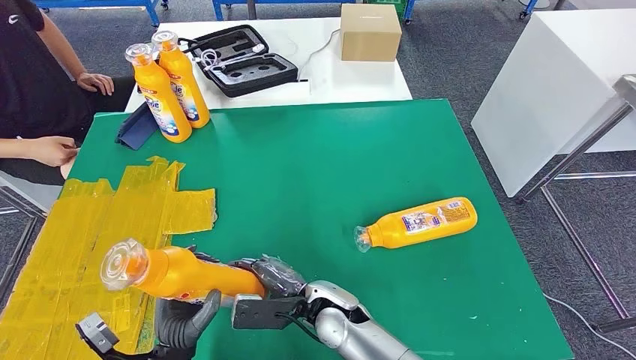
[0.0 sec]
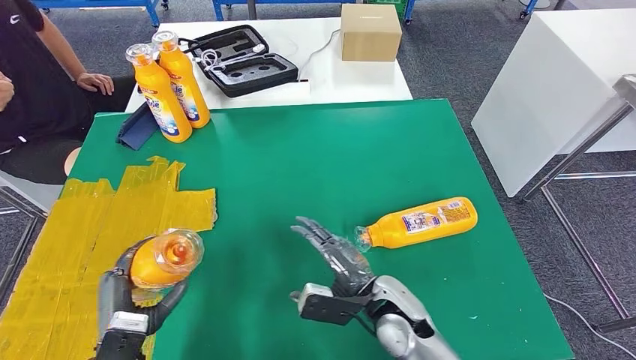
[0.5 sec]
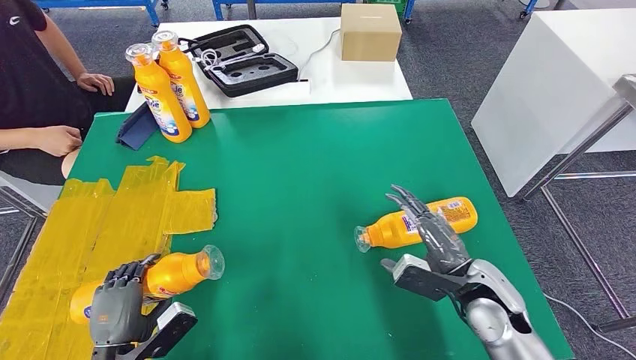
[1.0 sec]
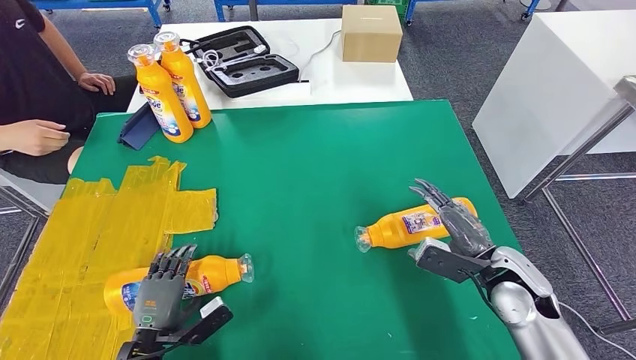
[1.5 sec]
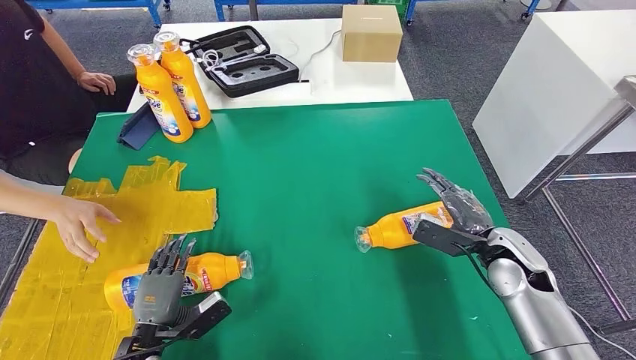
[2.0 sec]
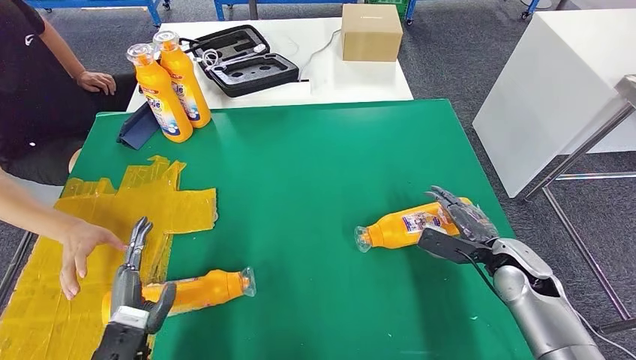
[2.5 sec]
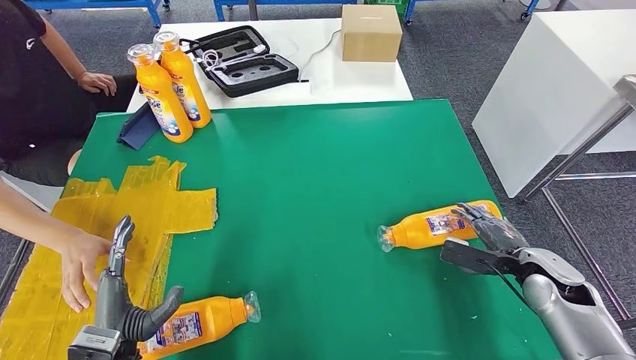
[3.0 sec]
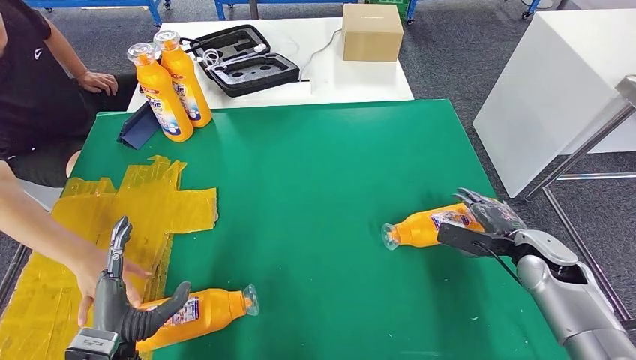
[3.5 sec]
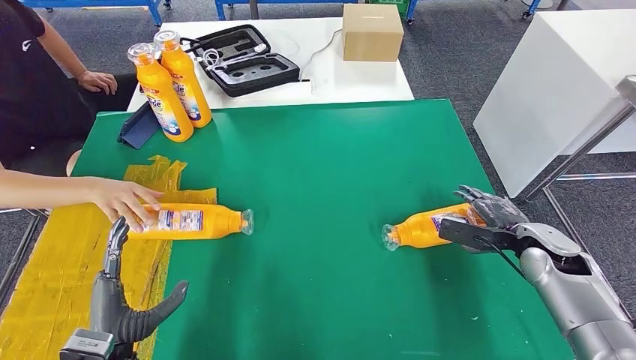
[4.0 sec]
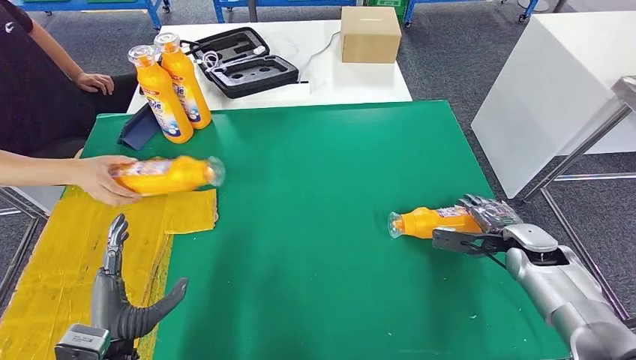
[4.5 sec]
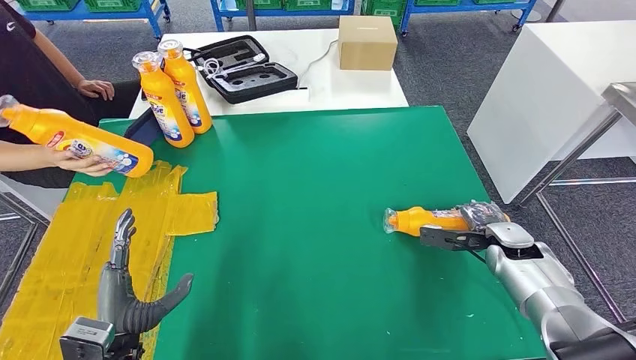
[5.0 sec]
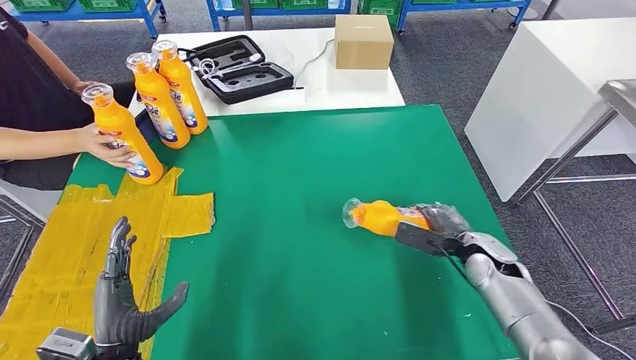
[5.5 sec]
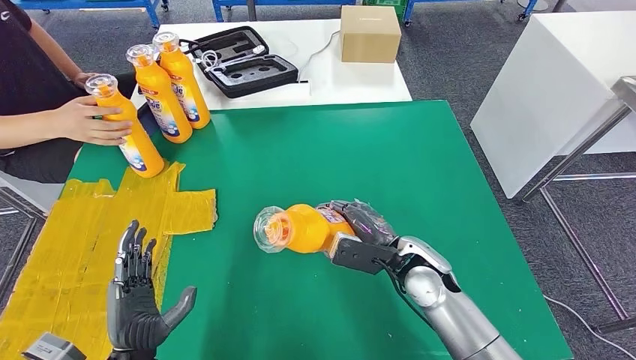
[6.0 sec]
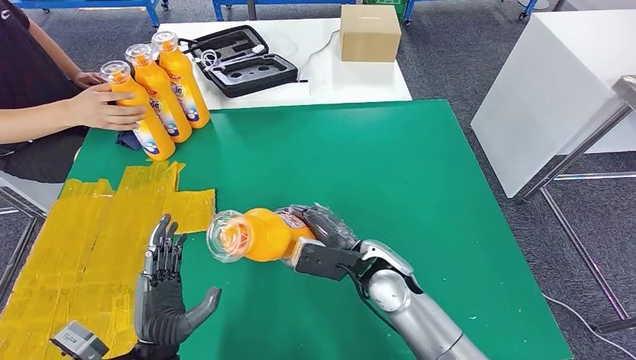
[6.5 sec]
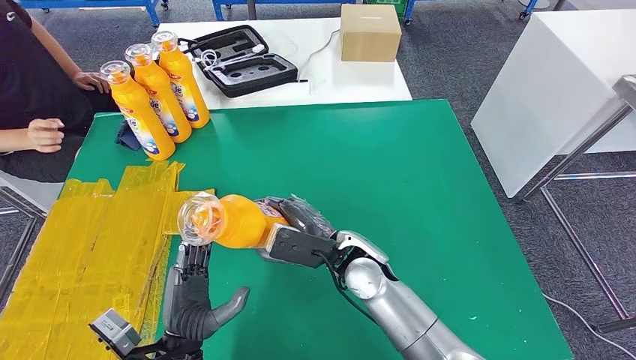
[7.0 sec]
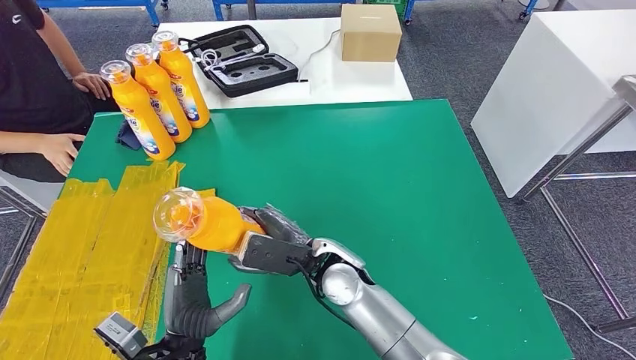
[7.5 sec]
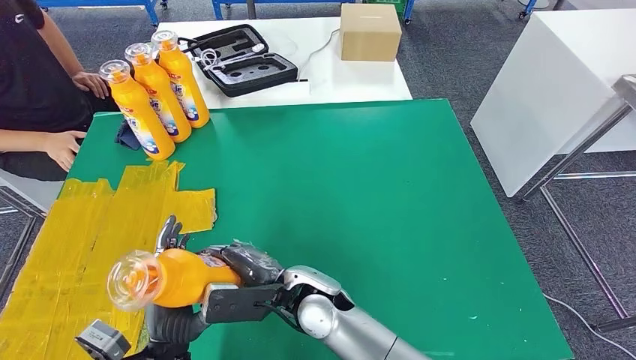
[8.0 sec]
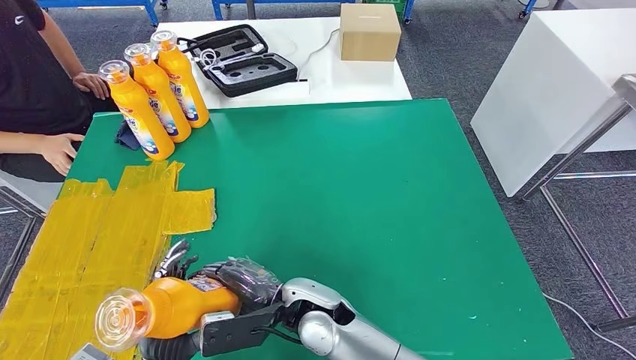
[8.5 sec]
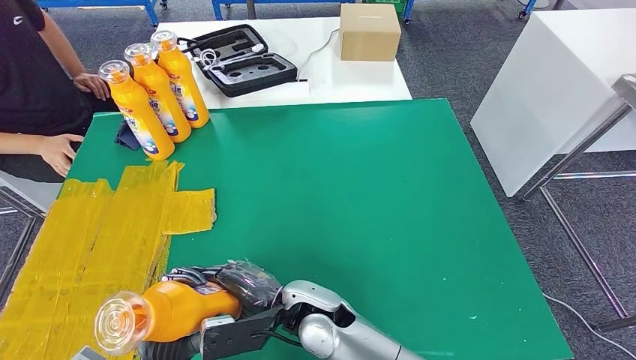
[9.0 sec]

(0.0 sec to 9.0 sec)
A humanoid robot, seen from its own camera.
Step, 0.0 sec - 2.5 sec: Flip the fast-moving consumer goods bottle to the front side.
Step, 3.5 sec - 6.5 sec: Pick up the fast-moving consumer goods bottle from the table.
7.0 sec - 9.0 sec: The left hand shifts by roughly 5 cm. Meanwhile the right hand shifts roughly 10 cm to the left and backward.

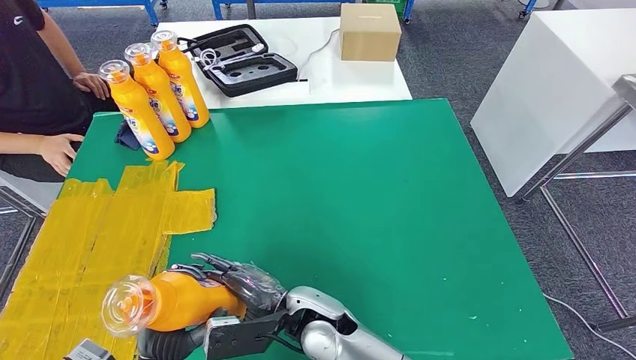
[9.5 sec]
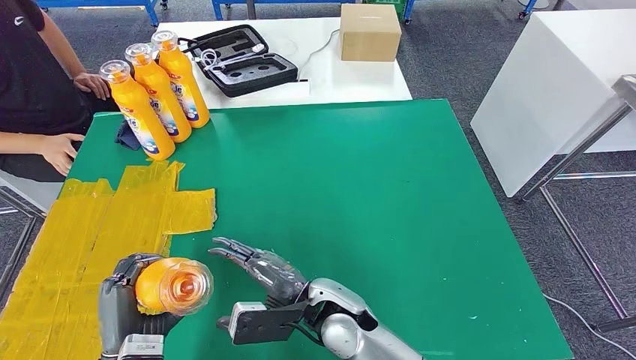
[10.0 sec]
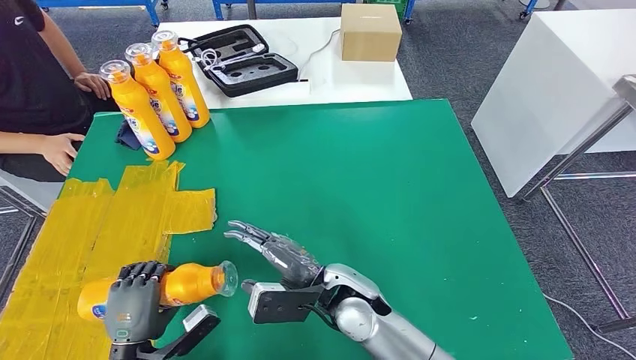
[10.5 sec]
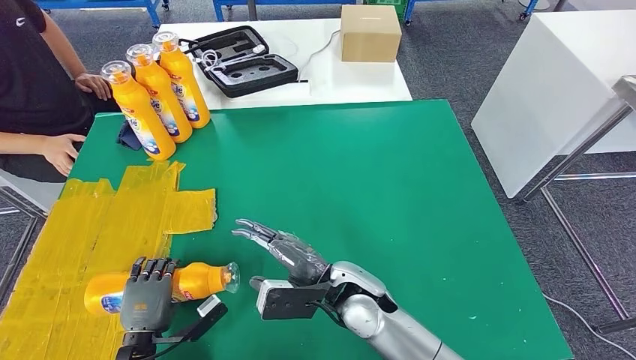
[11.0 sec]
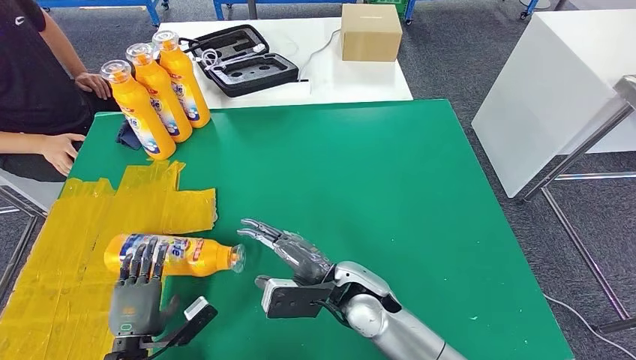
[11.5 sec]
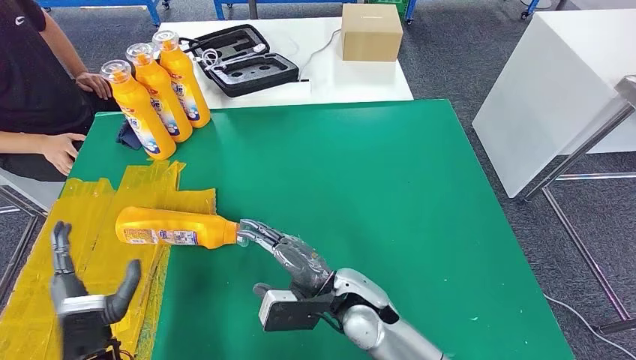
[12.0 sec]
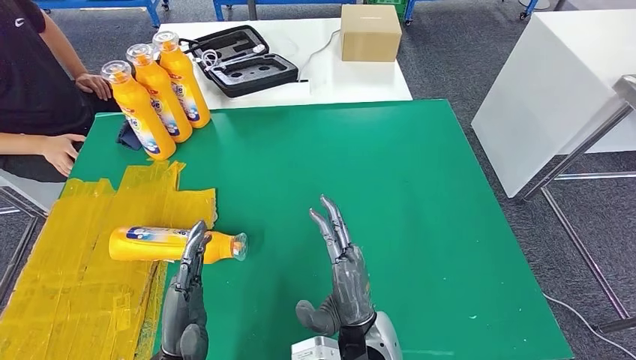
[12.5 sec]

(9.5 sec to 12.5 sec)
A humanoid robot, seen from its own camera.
Step, 9.5 sec - 12.5 sec: Flip the fast-moving consumer goods bottle to the front side.
9.5 sec - 11.0 sec: The left hand heads to the left and downward, covering roughly 10 cm. The right hand moves to the right, approximately 5 cm.
11.0 sec - 12.5 sec: The right hand heads backward, covering roughly 10 cm. Meanwhile the left hand shifts about 15 cm to the right and upward.
